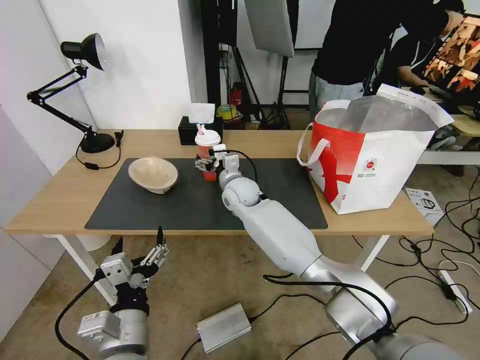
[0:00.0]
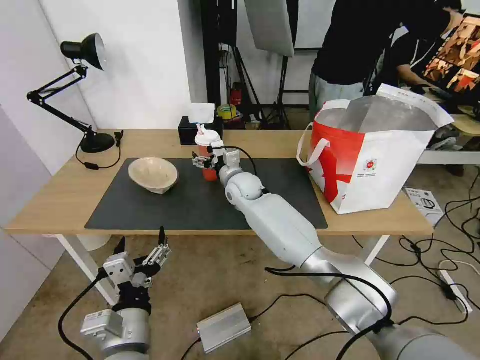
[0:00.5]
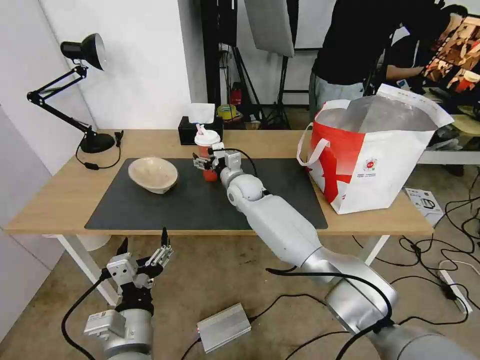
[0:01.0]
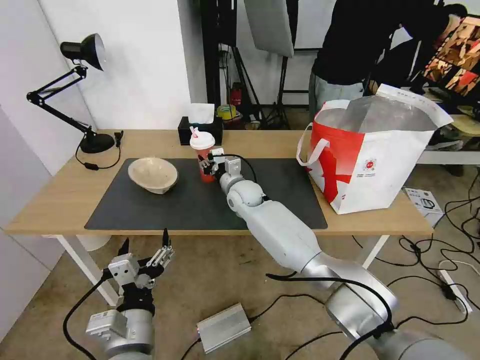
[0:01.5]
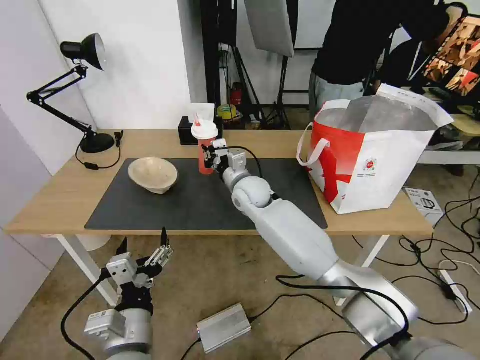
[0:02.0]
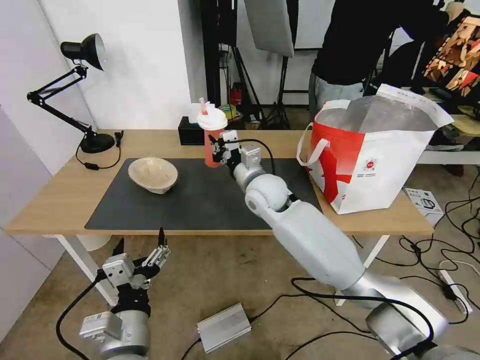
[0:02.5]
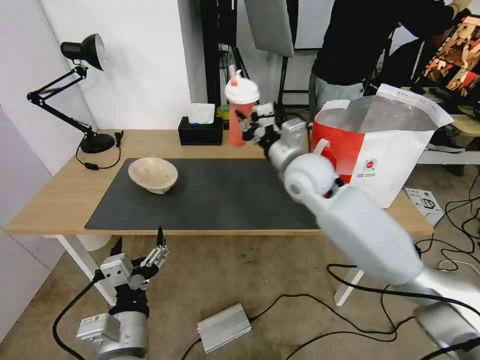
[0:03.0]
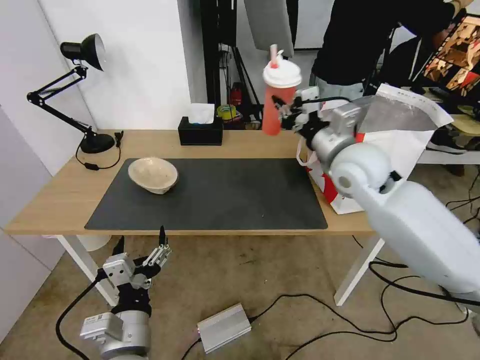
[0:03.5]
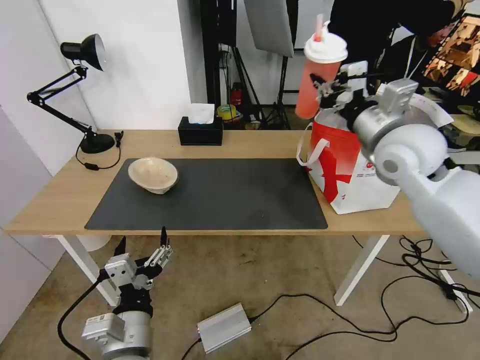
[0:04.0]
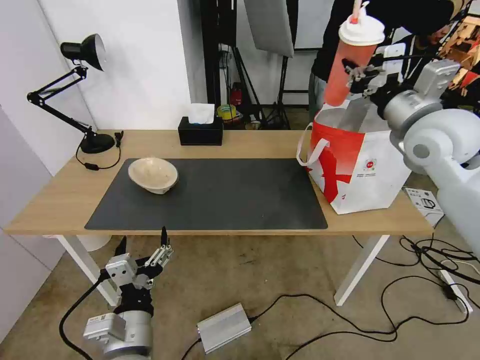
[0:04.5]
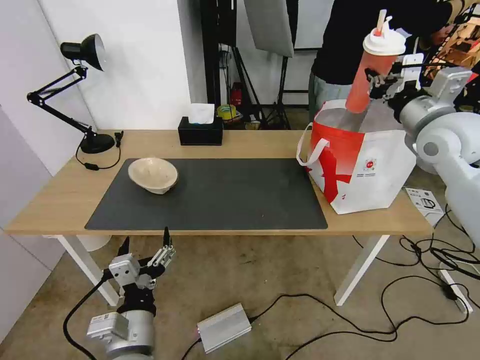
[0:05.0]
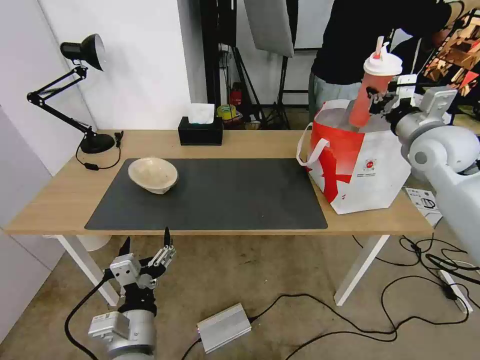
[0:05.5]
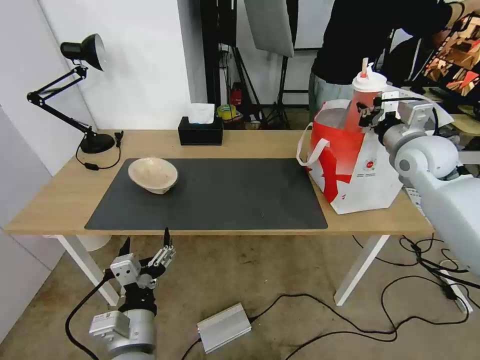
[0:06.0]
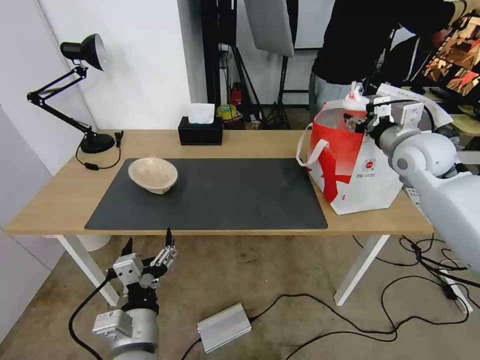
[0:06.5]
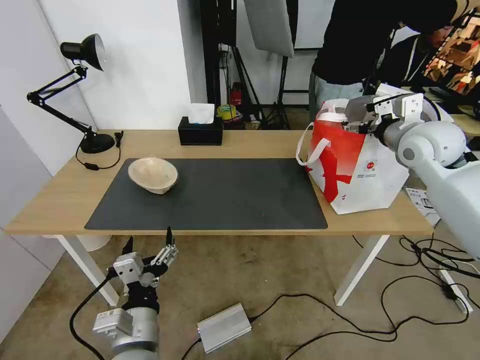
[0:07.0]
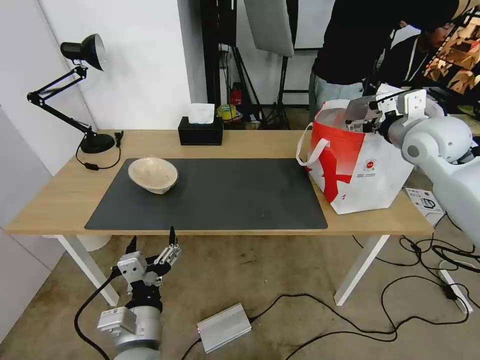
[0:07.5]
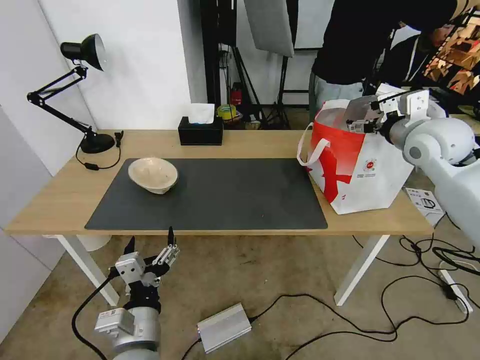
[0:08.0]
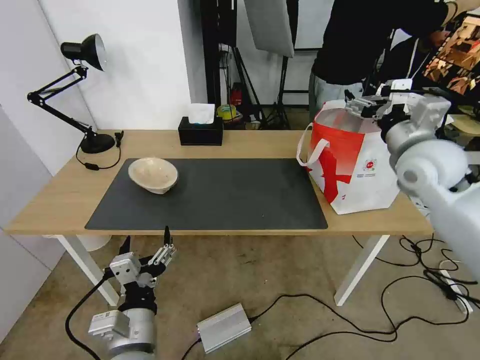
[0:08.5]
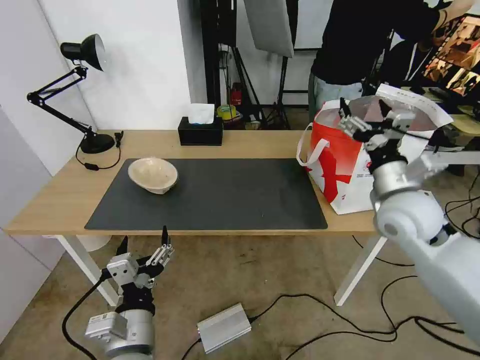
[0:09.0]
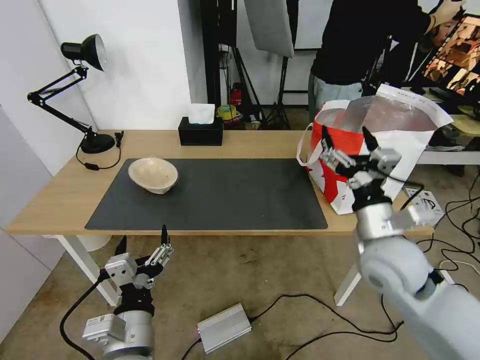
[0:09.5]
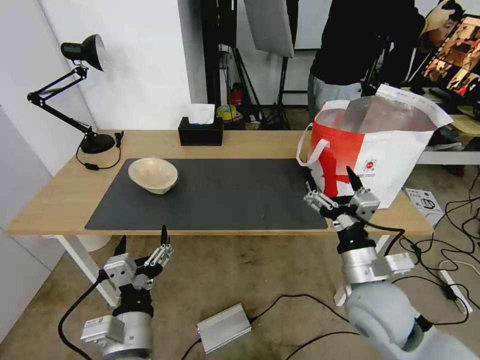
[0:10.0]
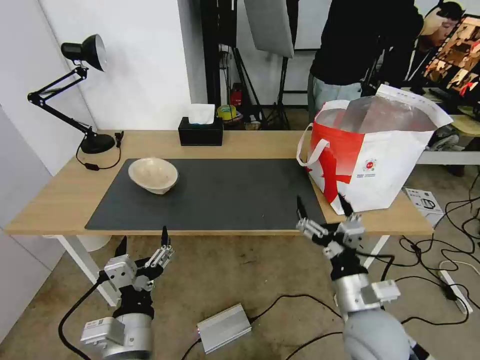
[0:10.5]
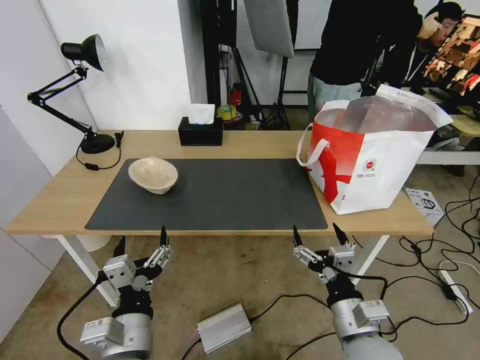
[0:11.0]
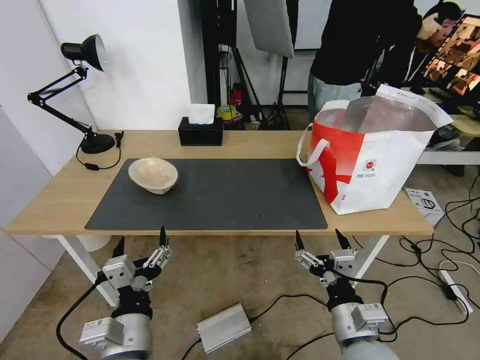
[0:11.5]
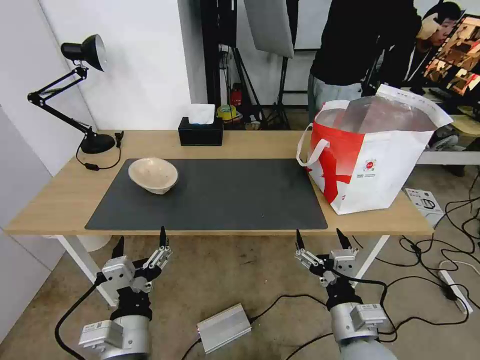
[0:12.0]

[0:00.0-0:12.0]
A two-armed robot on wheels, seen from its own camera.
Task of the whole recording: Pick up the trash from the table and place it into the takeout bag.
0:00.0 to 0:02.0: The right gripper closes.
0:02.0 to 0:04.0: The right gripper goes about 30 cm to the right and upward.
0:04.0 to 0:06.0: The right gripper shifts approximately 10 cm to the right, forward and downward.
0:06.0 to 0:08.0: The right gripper opens up.
0:08.0 to 0:10.0: The right gripper shifts some 35 cm backward, downward and to the left.
0:10.0 to 0:12.0: The right gripper shifts approximately 10 cm backward and downward.

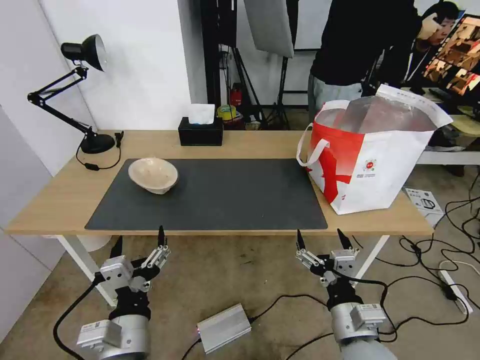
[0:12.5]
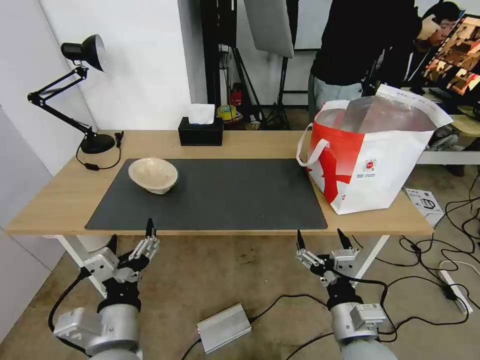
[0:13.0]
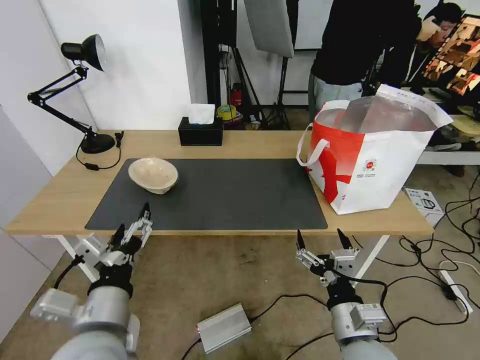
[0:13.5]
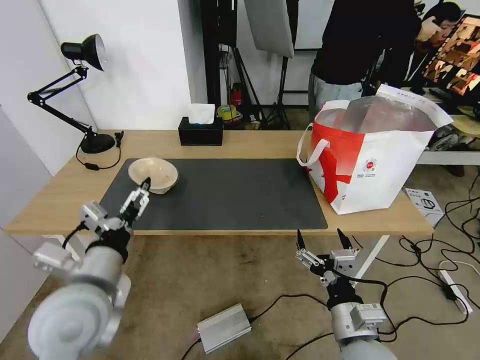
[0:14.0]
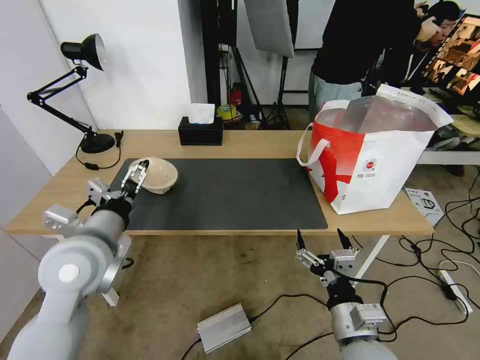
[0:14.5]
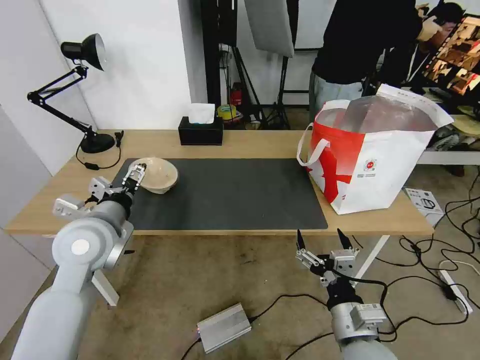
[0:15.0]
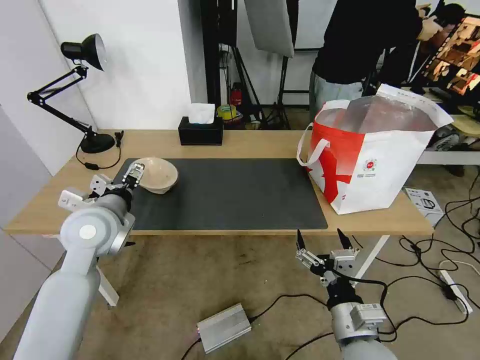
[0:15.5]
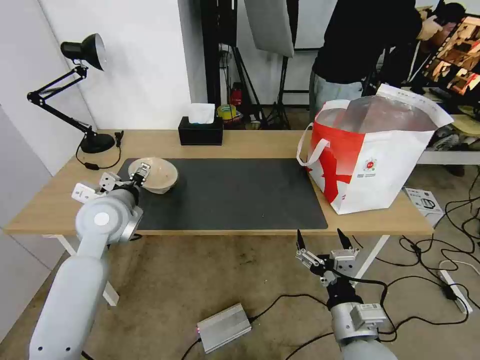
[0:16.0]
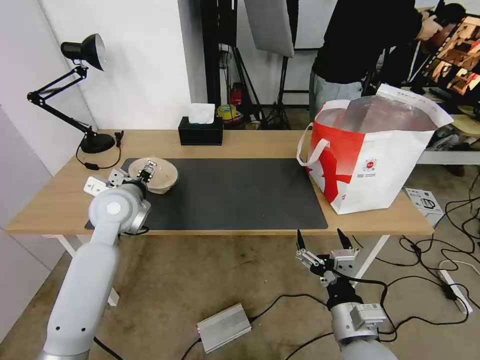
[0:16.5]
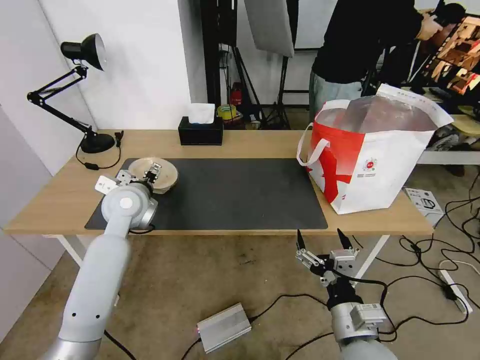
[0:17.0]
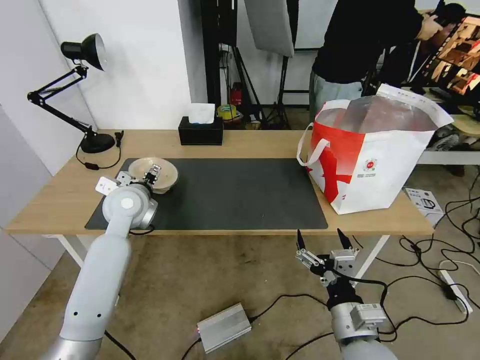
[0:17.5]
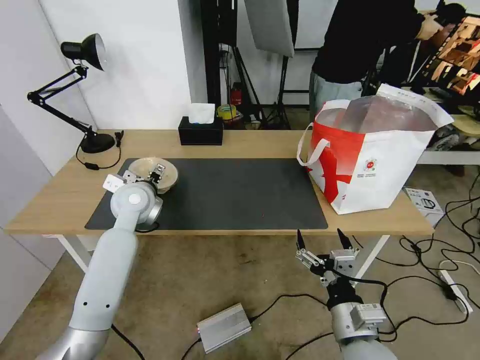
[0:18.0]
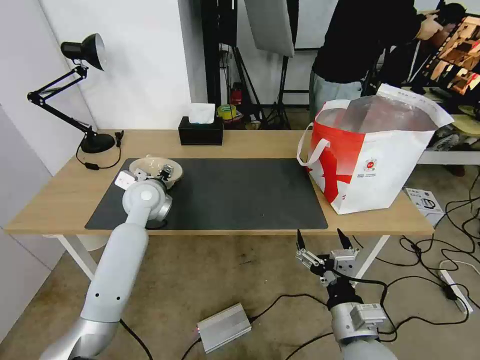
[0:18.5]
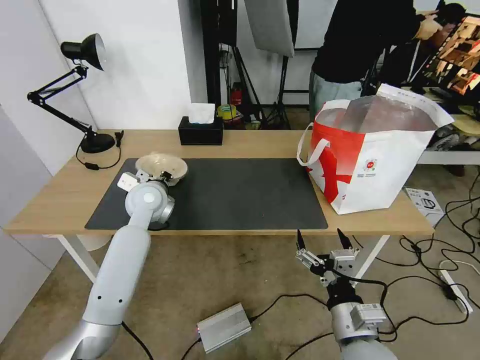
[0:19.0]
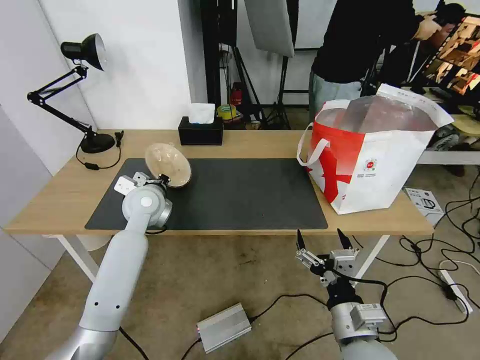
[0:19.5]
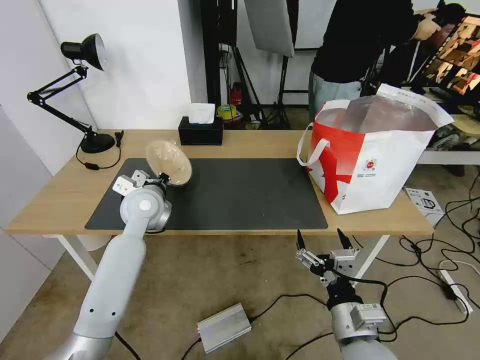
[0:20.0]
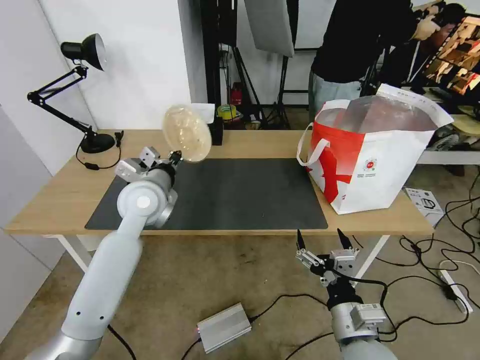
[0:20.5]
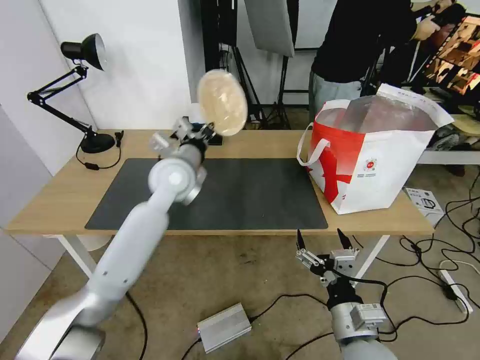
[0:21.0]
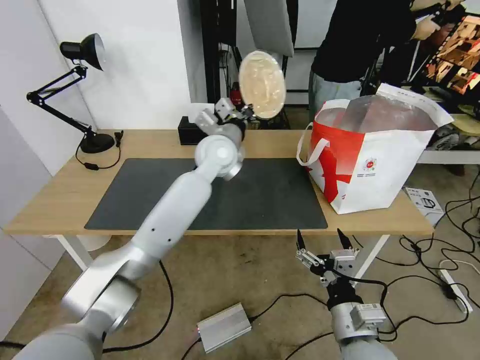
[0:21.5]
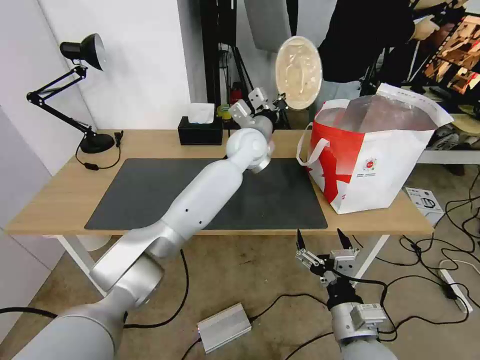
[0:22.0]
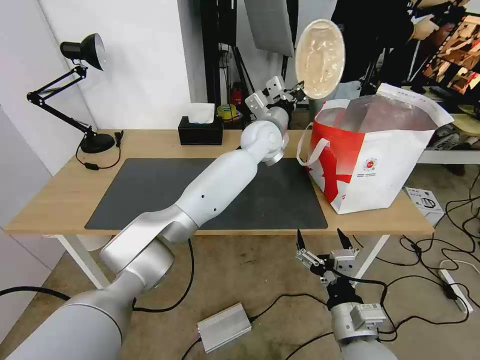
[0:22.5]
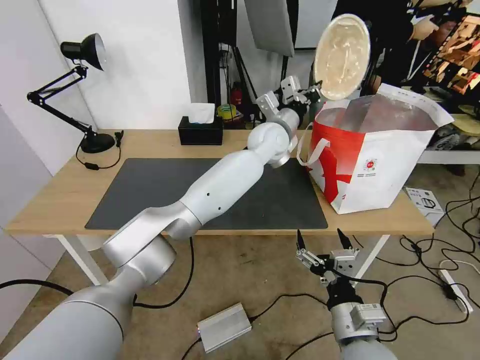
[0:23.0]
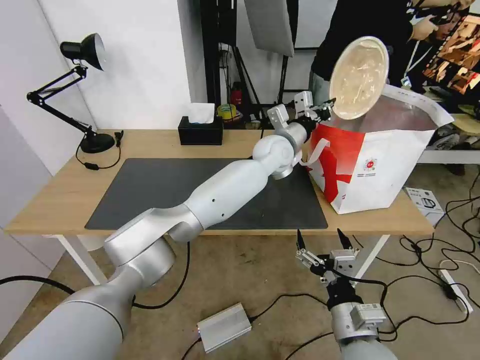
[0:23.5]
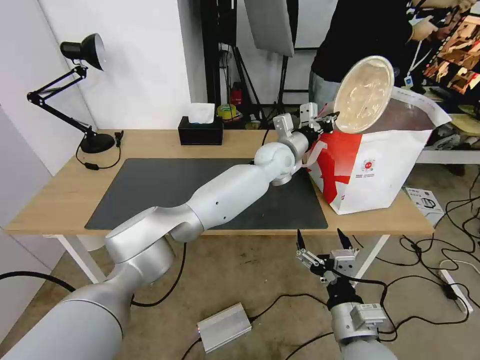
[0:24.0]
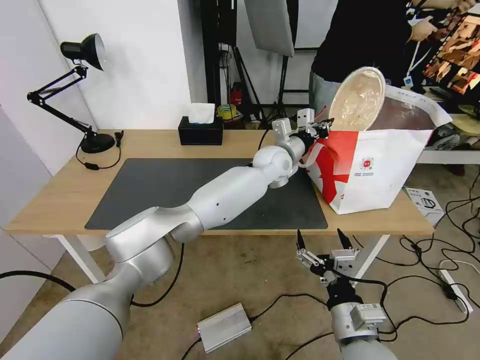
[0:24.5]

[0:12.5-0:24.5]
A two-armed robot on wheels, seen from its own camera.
Task of the whole recording: Pick up the trash from the table and place it into the takeout bag.
0:12.5 to 0:14.5: The left gripper goes approximately 20 cm forward, upward and to the left.
0:14.5 to 0:16.5: The left gripper travels forward by roughly 15 cm.
0:16.5 to 0:18.5: The left gripper is displaced forward by roughly 5 cm.
0:18.5 to 0:20.5: The left gripper changes place by approximately 5 cm, and closes its fingers.
0:20.5 to 0:22.5: The left gripper goes about 30 cm to the right and forward.
0:22.5 to 0:24.5: The left gripper shifts some 5 cm downward.

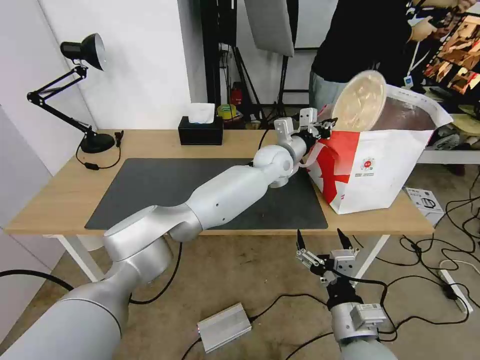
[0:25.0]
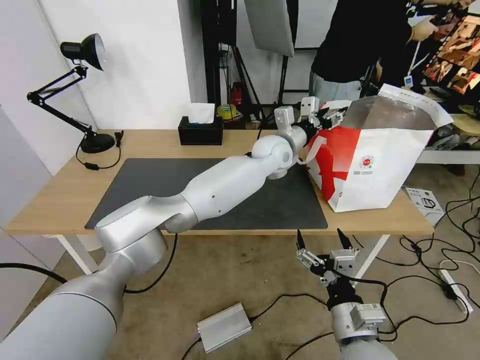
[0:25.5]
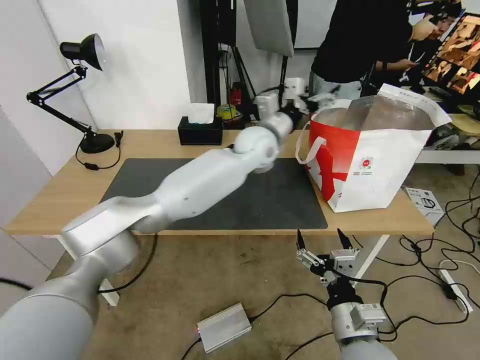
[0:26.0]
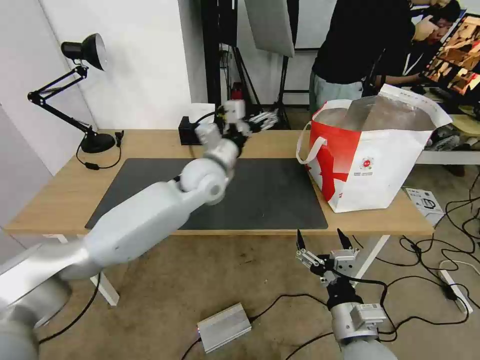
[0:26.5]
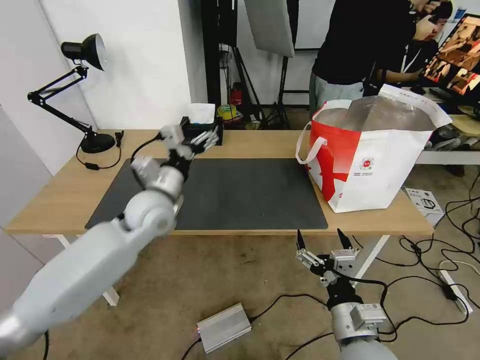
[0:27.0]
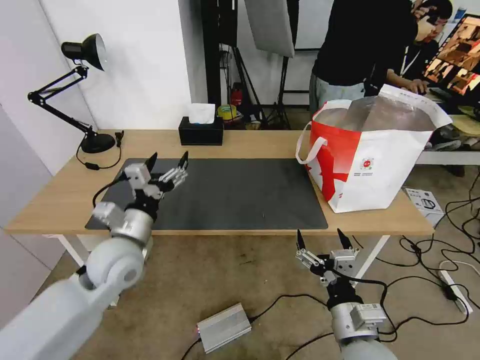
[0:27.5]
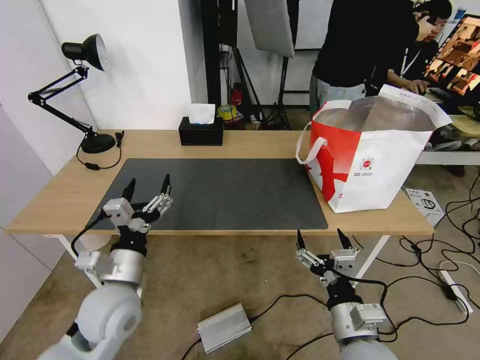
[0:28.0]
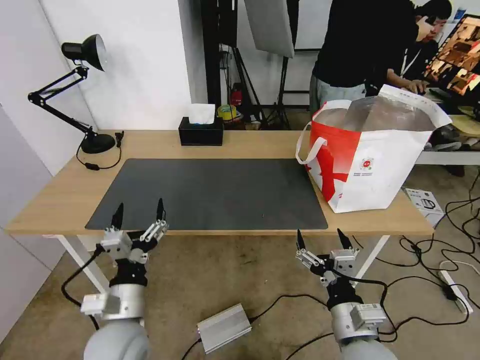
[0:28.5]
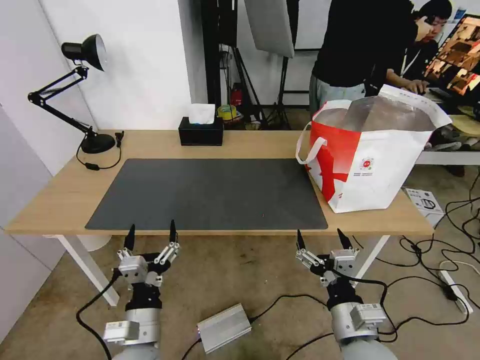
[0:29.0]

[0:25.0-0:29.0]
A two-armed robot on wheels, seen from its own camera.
Task of the whole recording: Pick up the trash from the table and place it into the takeout bag.
0:25.0 to 0:27.0: The left gripper goes approximately 30 cm to the left and backward, and opens its fingers.
0:27.0 to 0:29.0: The left gripper shifts approximately 30 cm backward and downward.
